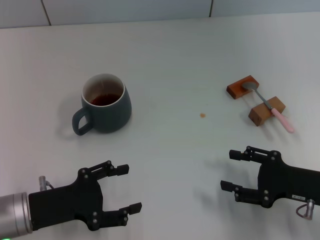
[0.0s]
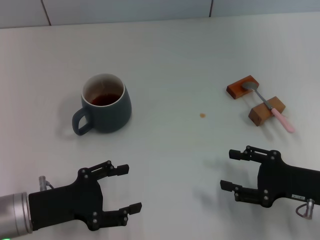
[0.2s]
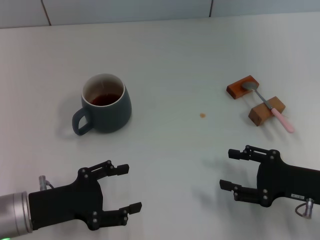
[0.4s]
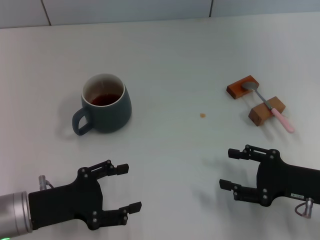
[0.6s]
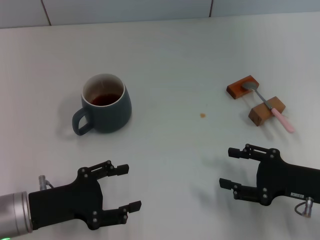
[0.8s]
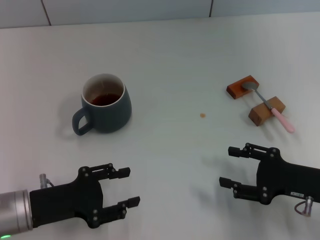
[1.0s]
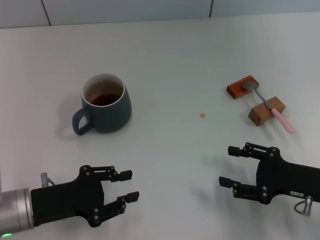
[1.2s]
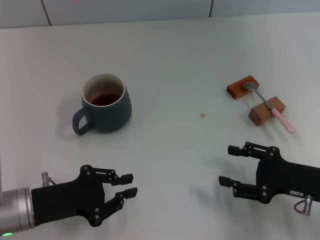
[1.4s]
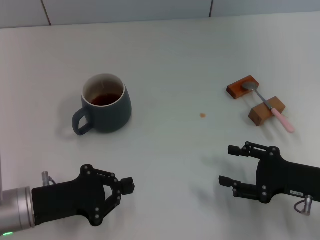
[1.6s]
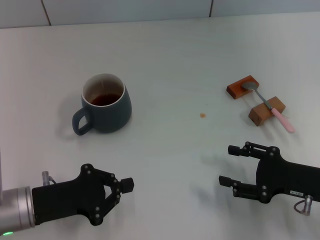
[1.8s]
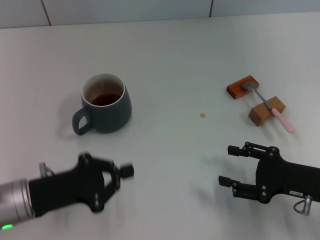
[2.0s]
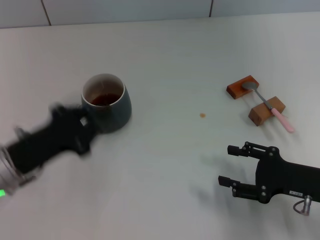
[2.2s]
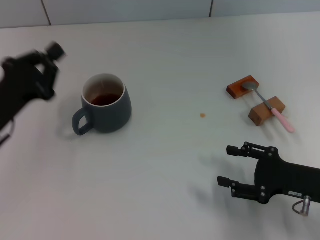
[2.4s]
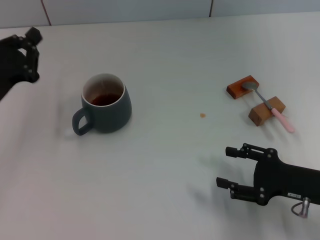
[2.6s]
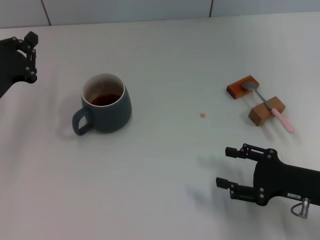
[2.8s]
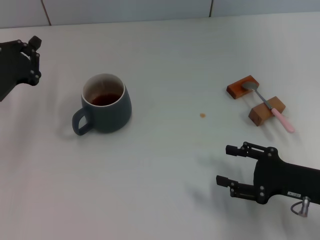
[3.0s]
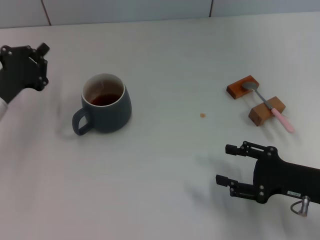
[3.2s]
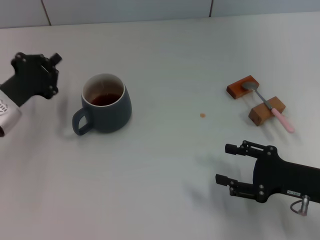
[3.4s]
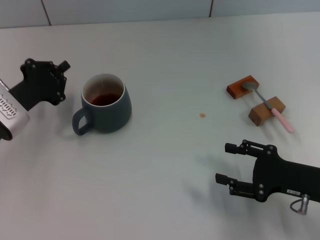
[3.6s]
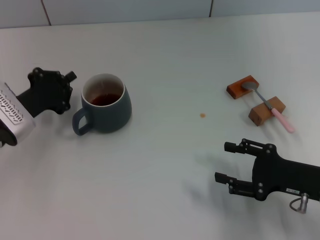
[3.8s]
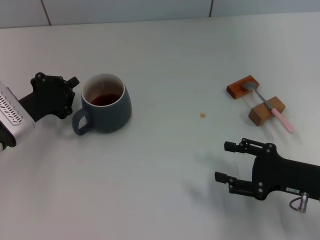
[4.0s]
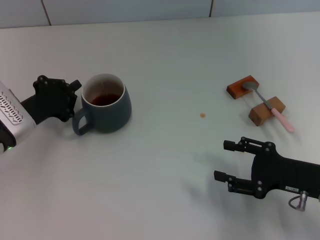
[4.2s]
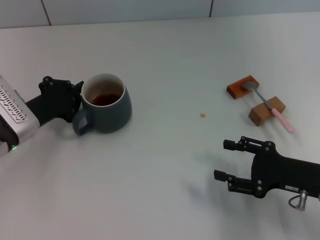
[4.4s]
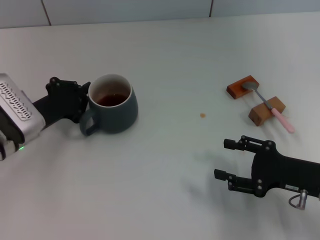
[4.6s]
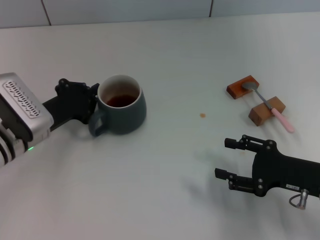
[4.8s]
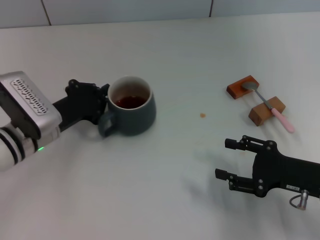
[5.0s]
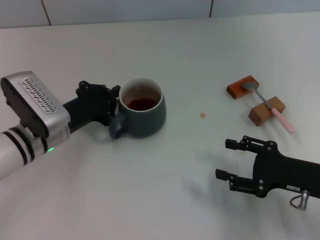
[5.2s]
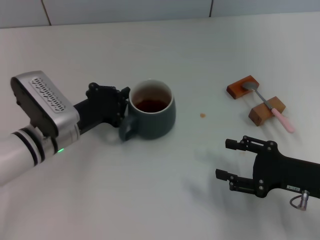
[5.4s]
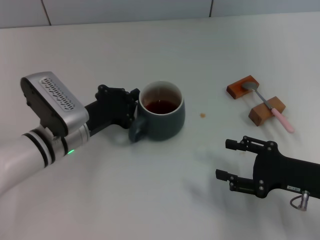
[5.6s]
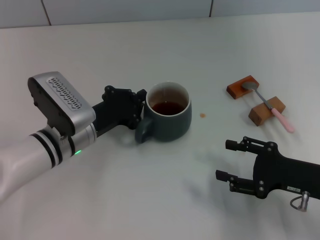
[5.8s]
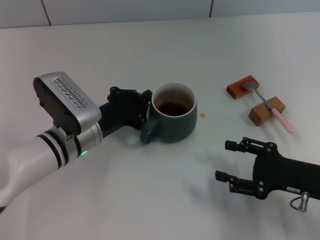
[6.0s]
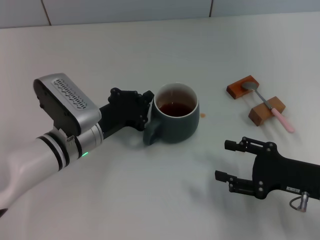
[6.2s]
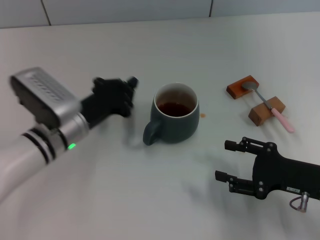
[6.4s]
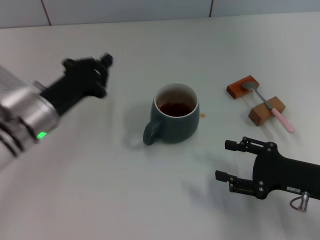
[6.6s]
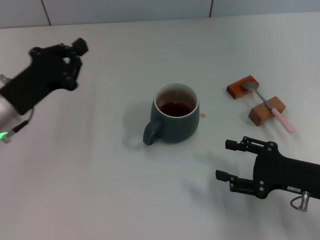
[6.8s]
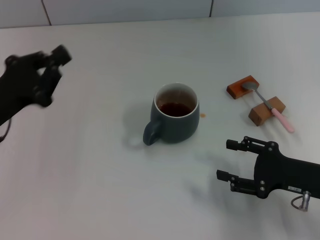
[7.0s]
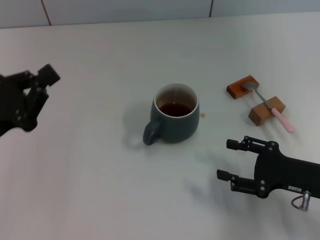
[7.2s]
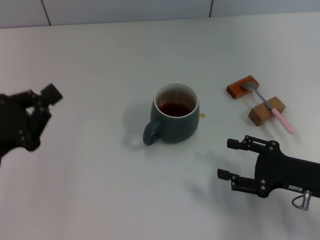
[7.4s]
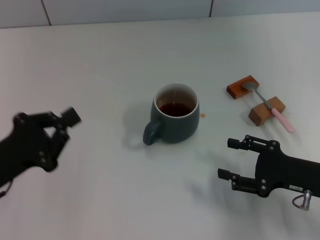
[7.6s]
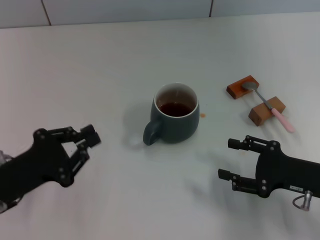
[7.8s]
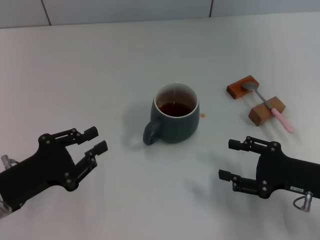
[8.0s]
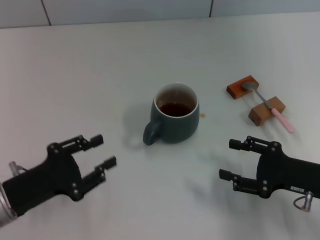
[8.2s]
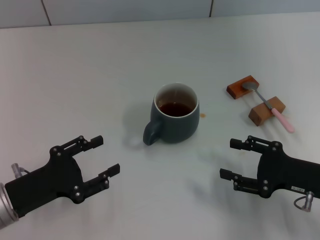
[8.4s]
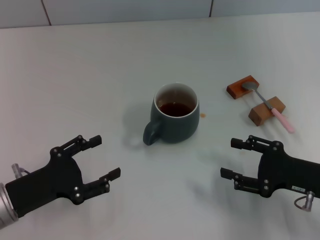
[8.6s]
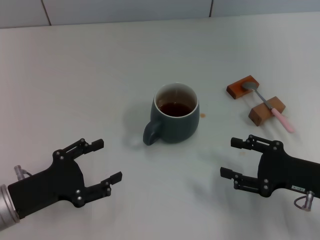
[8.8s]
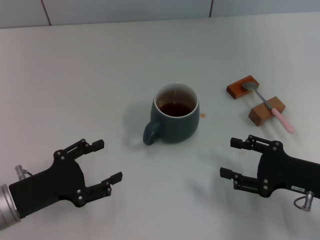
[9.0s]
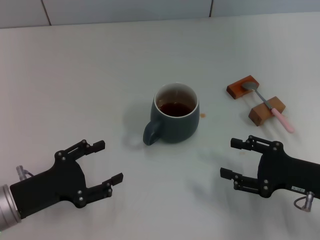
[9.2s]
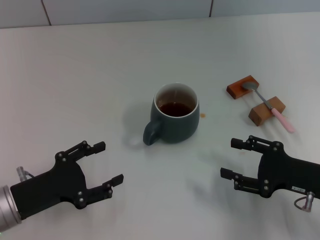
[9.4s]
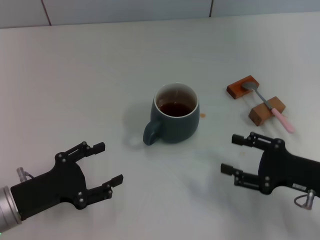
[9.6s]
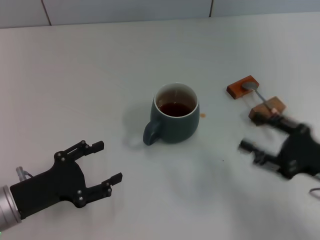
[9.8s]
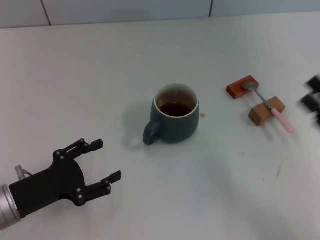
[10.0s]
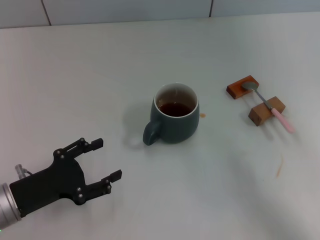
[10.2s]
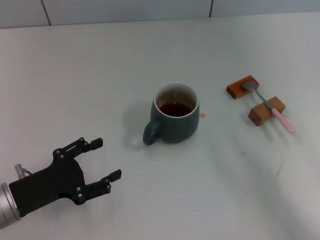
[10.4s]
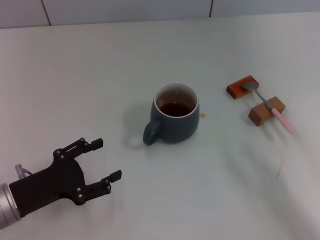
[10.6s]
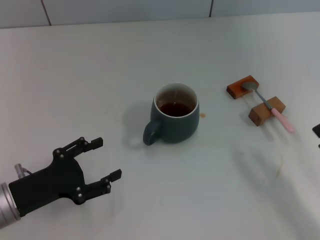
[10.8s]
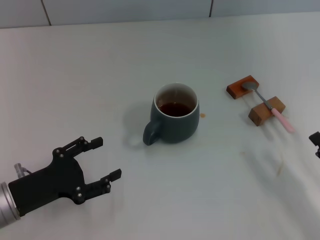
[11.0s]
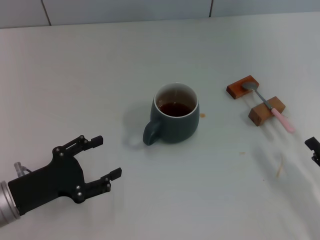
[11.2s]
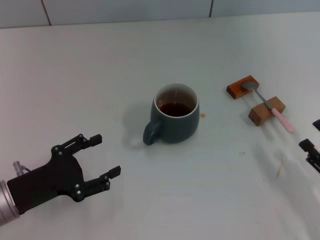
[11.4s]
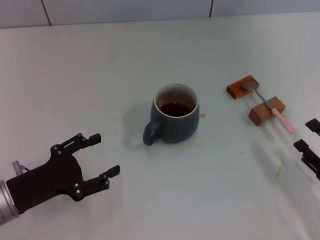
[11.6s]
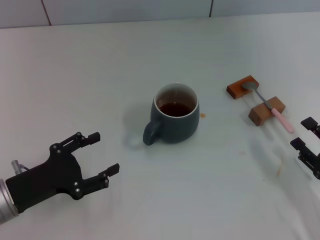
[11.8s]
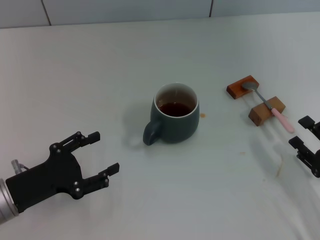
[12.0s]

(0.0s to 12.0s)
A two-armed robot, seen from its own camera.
Task of the whole recording: Move the grey cup to the center, lift the pink spoon, stir it three times in the cup, and put the spoon into the cup.
Step, 0.0s - 6.2s: Move the cup with coffee to the center of view with the left gripper.
0.0s - 1.6s: The left gripper closes up.
1.6s - 3.0s: The left gripper shifts approximately 10 cm forward.
4.4s - 6.0s: The left gripper travels to the right by some 10 cm.
6.0s - 7.6s: The left gripper travels to the left and backward by roughly 15 cm.
7.6s - 9.0s: The left gripper opens up.
9.0s - 10.4s: The right gripper is displaced backward and to the right by about 10 cm.
10.4s - 12.0s: The right gripper moves downward, some 5 cm.

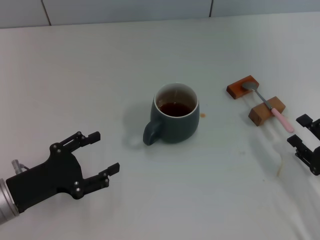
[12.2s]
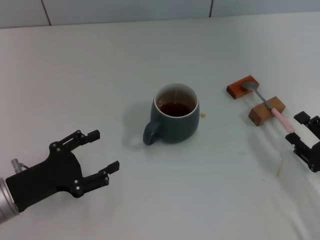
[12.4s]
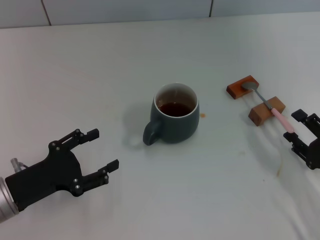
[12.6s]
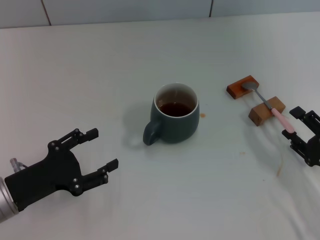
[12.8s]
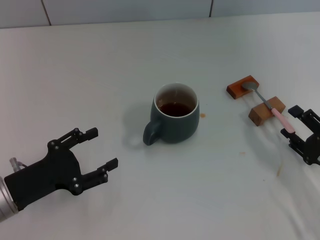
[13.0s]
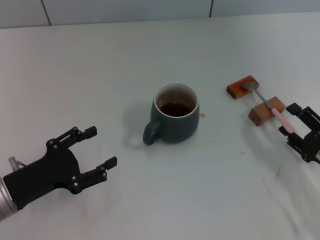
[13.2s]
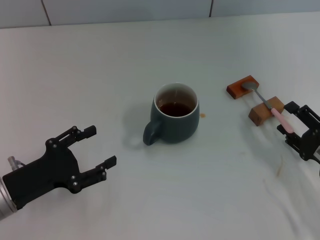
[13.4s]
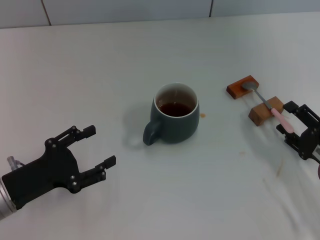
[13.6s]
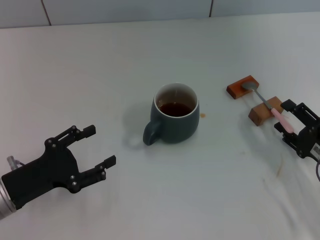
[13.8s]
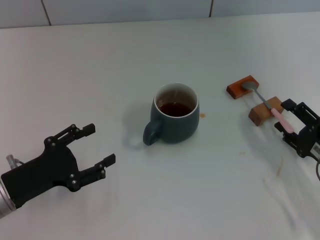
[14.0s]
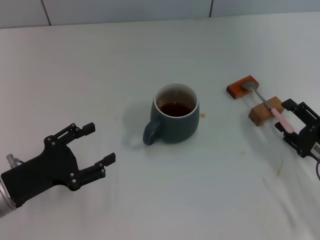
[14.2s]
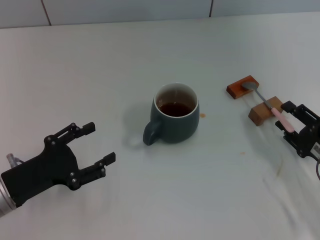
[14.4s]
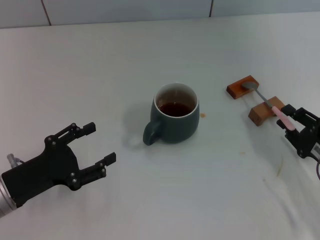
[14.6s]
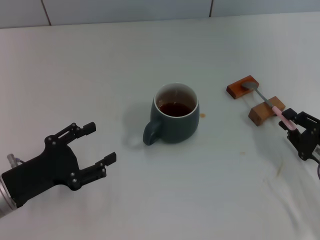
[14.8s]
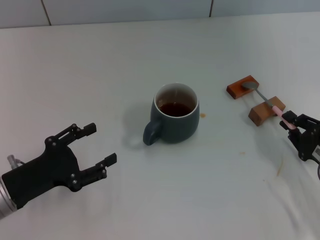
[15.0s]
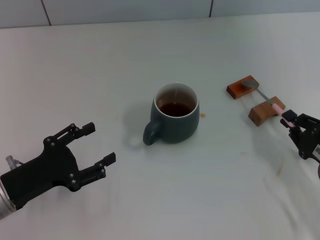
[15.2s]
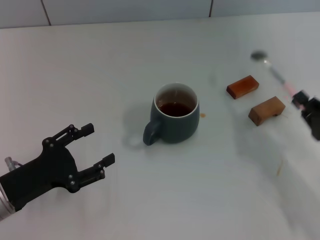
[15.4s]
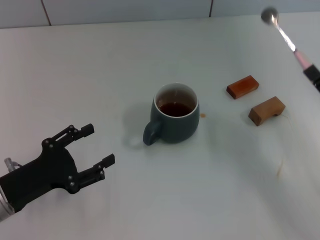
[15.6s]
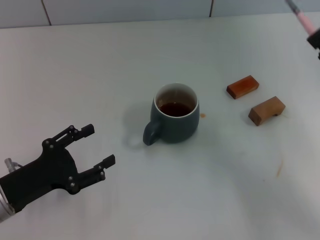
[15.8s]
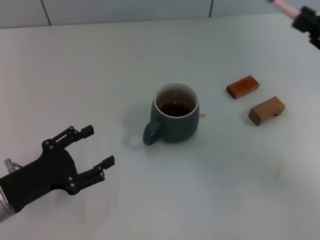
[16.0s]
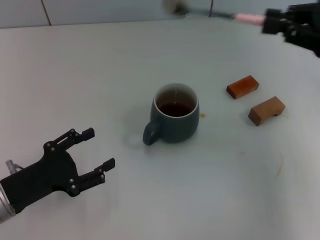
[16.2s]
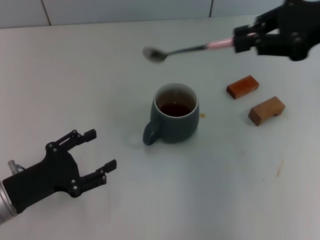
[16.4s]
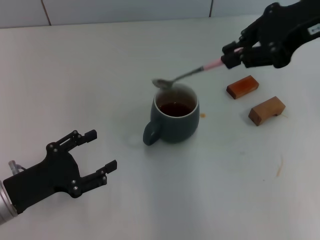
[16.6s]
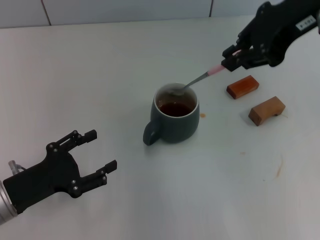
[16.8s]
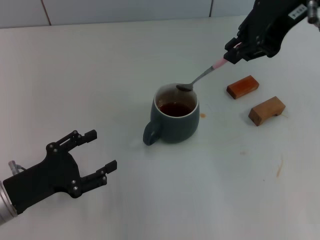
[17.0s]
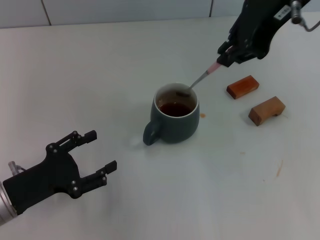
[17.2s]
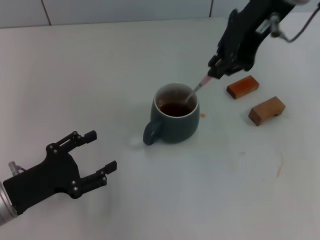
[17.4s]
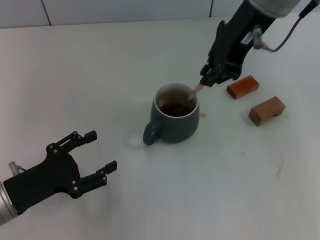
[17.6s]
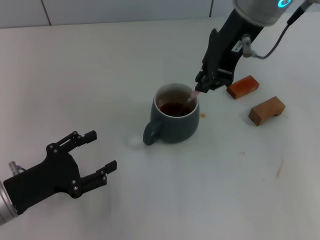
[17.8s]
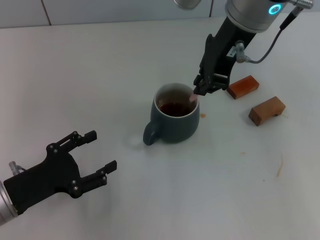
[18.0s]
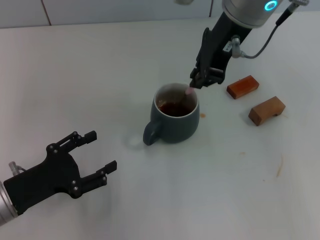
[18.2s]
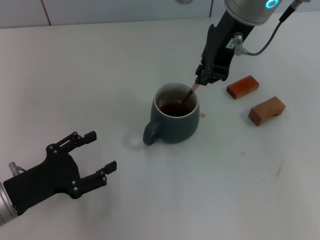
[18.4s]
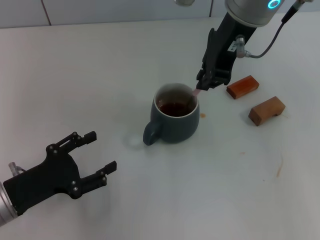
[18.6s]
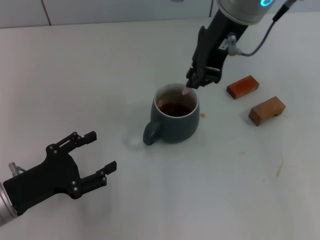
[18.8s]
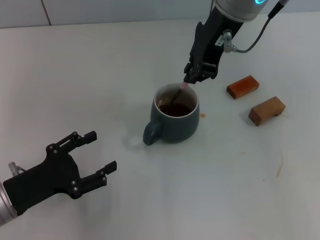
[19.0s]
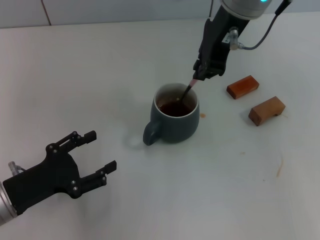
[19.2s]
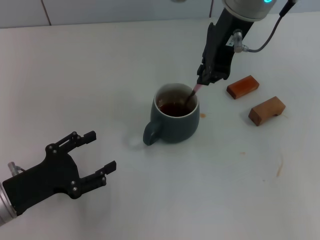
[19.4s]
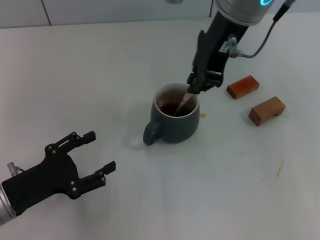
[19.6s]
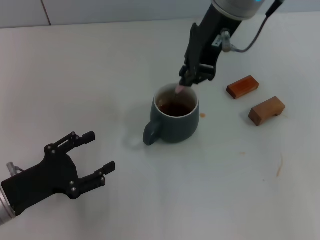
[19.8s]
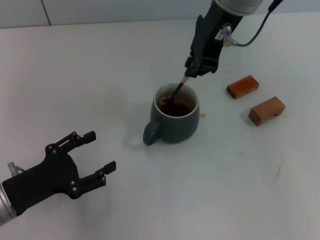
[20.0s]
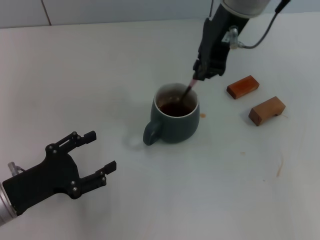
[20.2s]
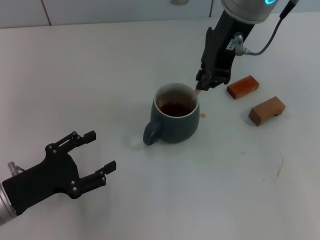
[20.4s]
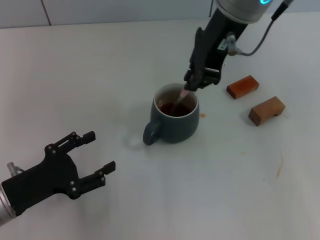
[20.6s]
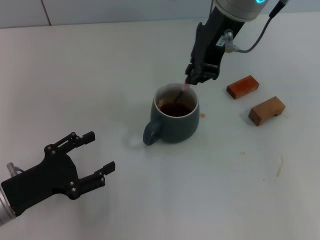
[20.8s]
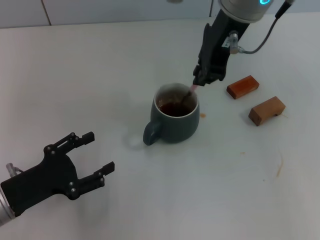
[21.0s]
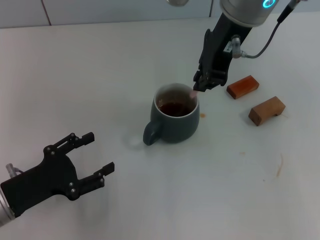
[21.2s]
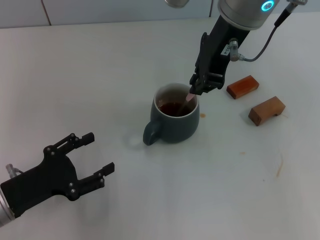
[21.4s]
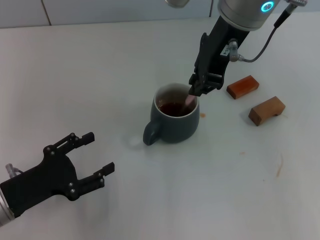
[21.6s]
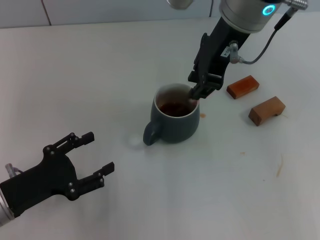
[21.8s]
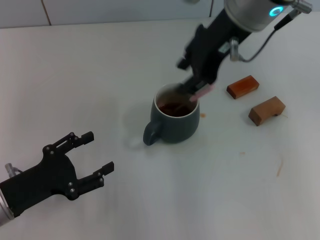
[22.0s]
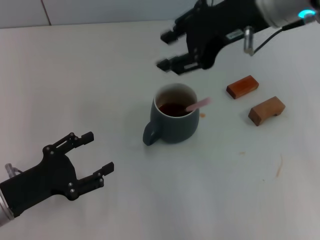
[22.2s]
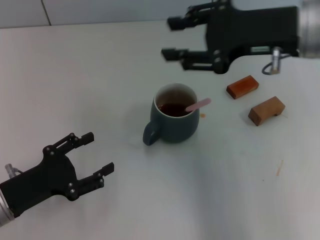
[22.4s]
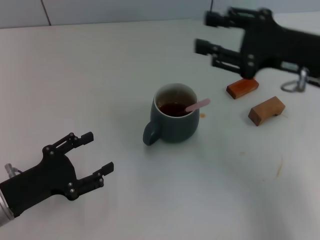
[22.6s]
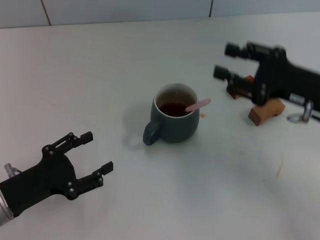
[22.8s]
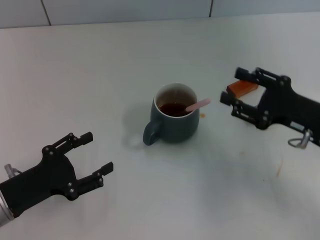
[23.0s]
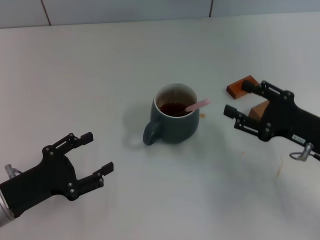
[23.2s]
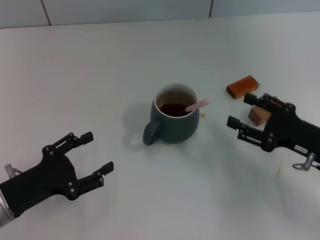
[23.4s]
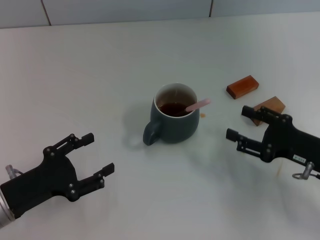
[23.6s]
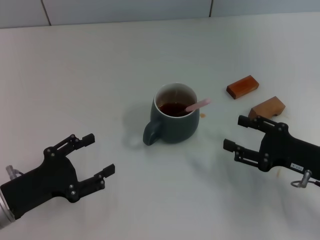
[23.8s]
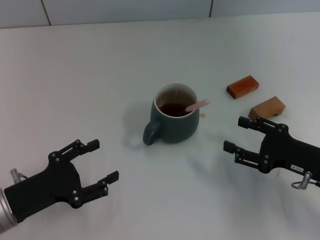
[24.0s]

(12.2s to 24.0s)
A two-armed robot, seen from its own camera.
Task of the whole recording: Move the grey cup to the center, lift the pink spoon, stir it three times in the cup, and put the spoon into the cup.
Step, 12.2s - 15.2s: Pick up the spoon with the right gripper.
Step, 15.4s - 22.0s: Stir the coffee in the cup with the right gripper.
12.2s - 13.6s: There are only small adjustments of the grippers.
13.6s - 15.2s: The right gripper closes up.
15.2s - 16.6s: The right gripper is displaced upward and forward by approximately 35 cm.
16.6s - 18.2s: The right gripper shifts approximately 10 cm to the left.
18.2s - 21.0s: The grippers make only small movements.
21.0s - 22.6s: The right gripper heads to the right, downward and backward, covering some 20 cm, and opens its fingers.
22.6s - 24.0s: The right gripper heads downward and backward, covering roughly 15 cm.
